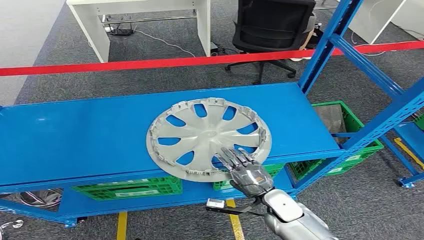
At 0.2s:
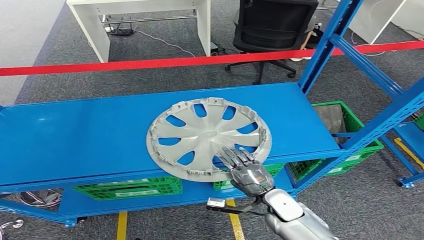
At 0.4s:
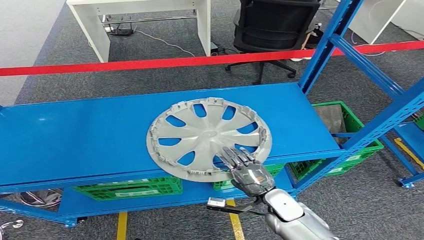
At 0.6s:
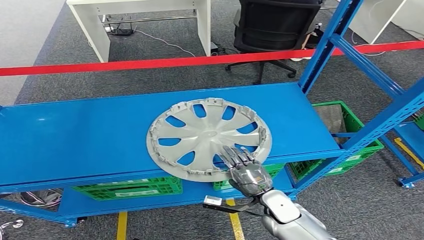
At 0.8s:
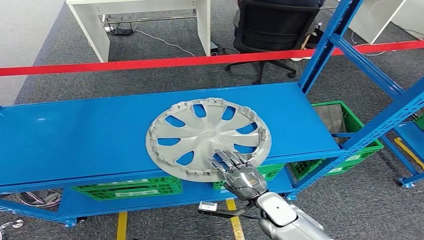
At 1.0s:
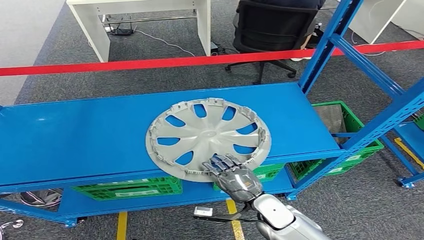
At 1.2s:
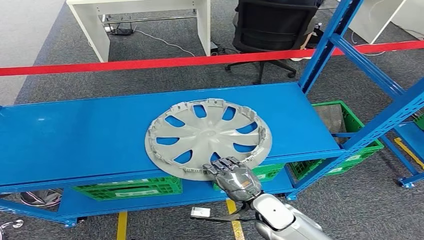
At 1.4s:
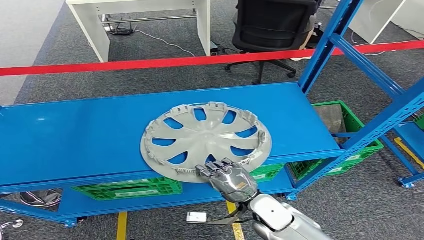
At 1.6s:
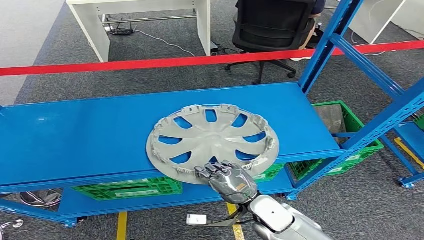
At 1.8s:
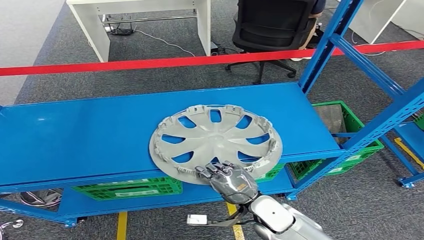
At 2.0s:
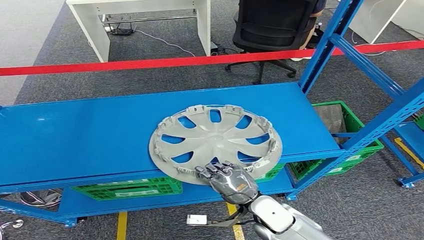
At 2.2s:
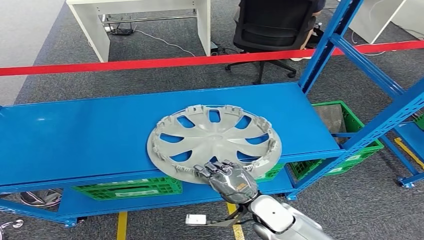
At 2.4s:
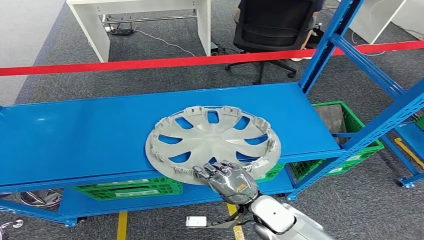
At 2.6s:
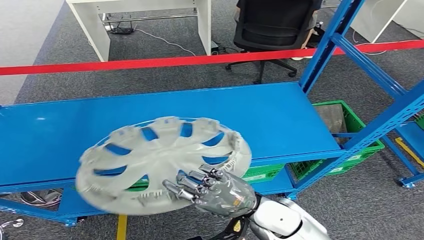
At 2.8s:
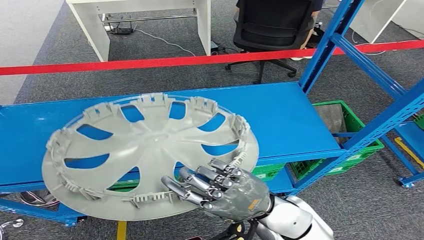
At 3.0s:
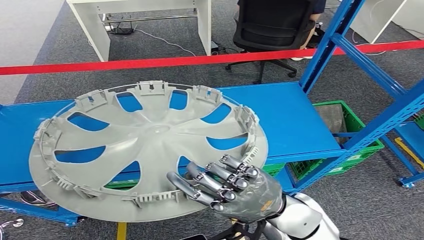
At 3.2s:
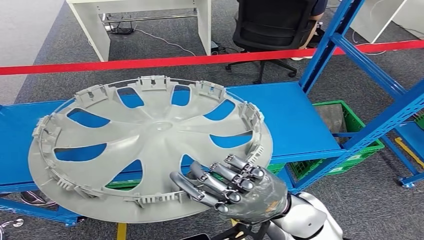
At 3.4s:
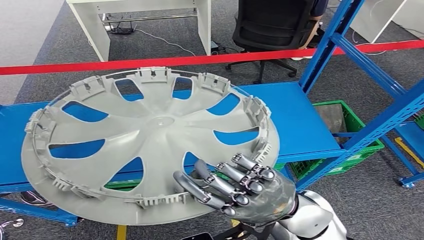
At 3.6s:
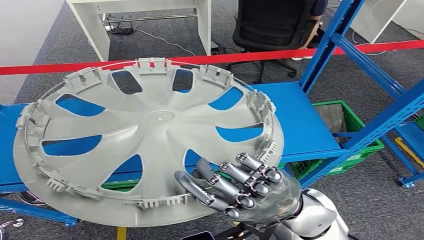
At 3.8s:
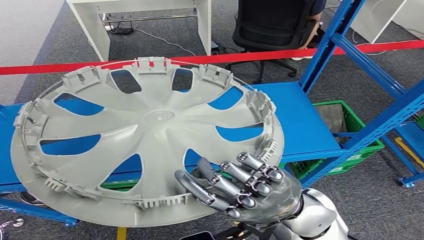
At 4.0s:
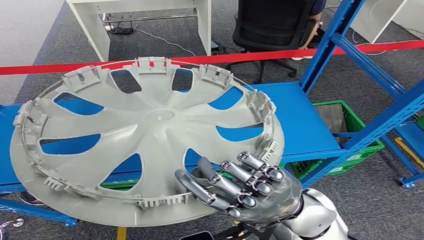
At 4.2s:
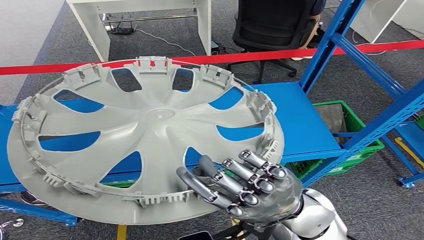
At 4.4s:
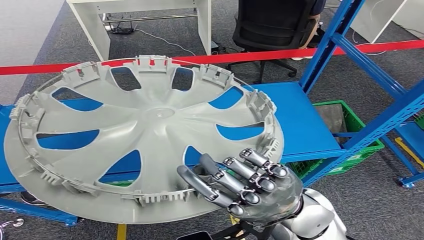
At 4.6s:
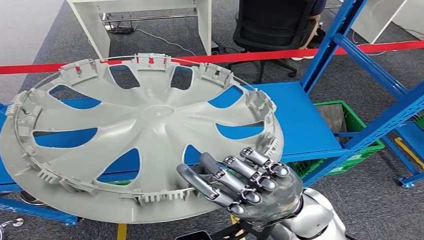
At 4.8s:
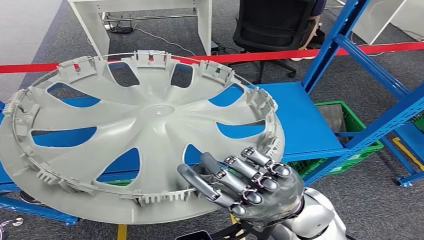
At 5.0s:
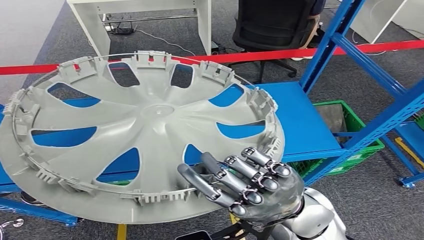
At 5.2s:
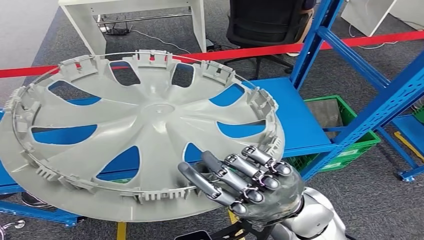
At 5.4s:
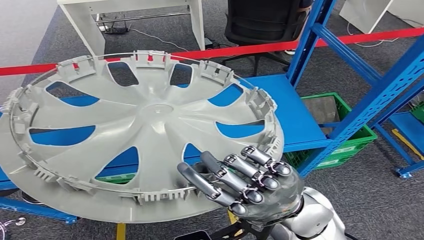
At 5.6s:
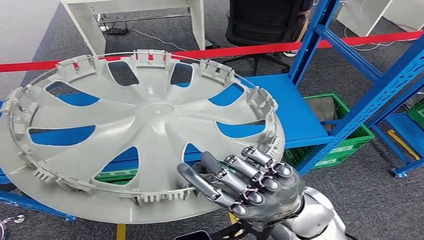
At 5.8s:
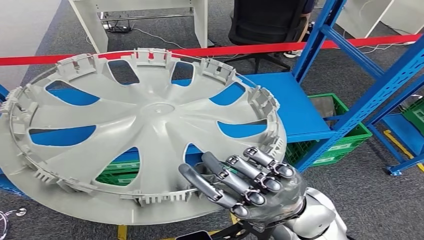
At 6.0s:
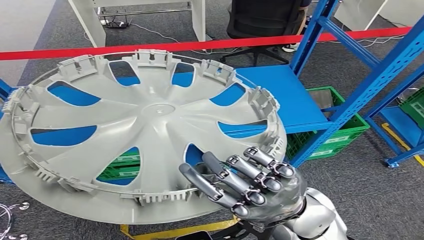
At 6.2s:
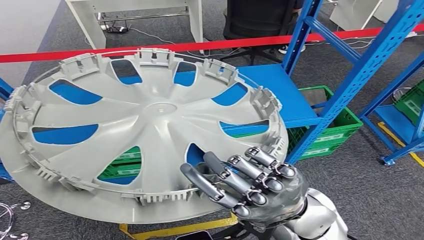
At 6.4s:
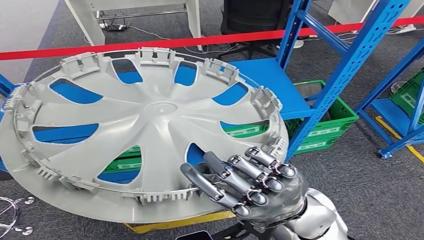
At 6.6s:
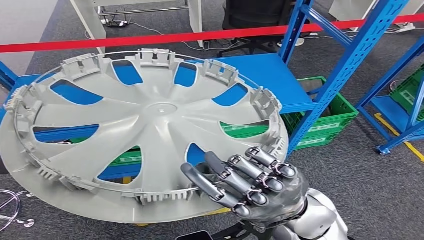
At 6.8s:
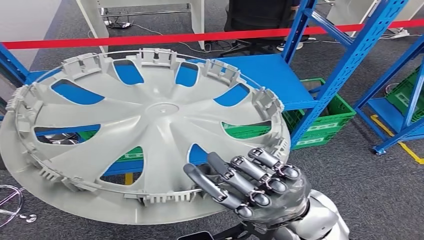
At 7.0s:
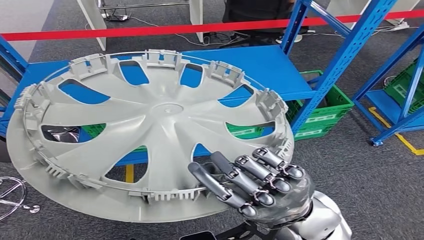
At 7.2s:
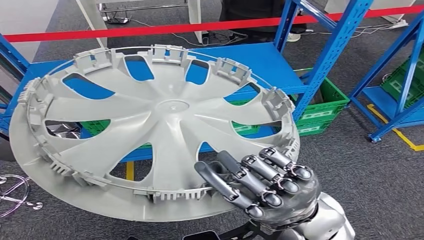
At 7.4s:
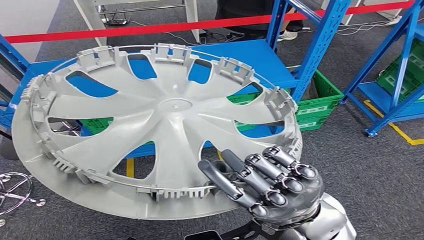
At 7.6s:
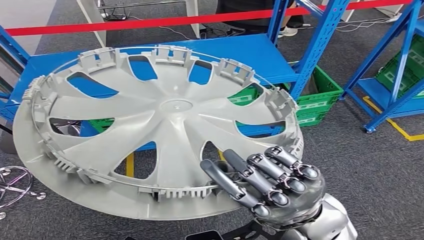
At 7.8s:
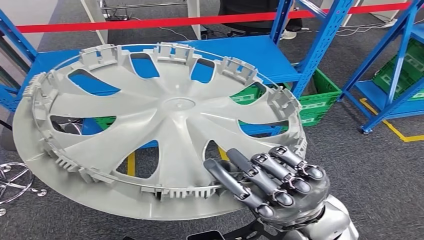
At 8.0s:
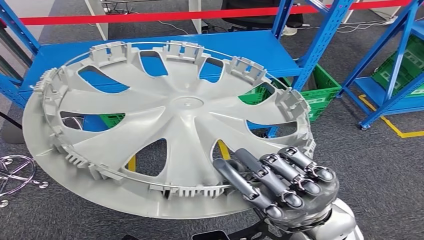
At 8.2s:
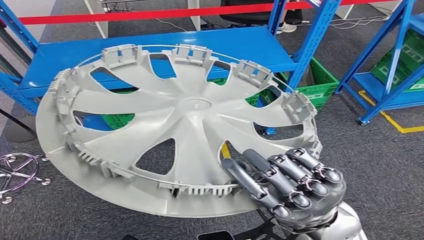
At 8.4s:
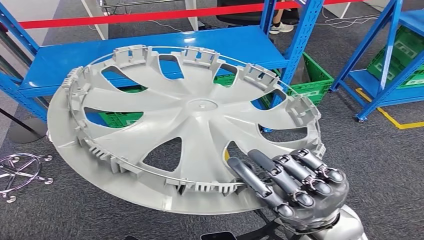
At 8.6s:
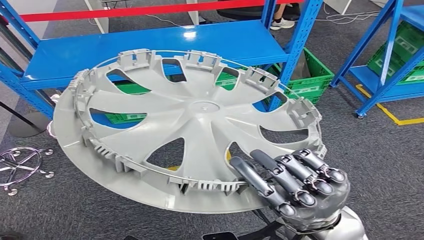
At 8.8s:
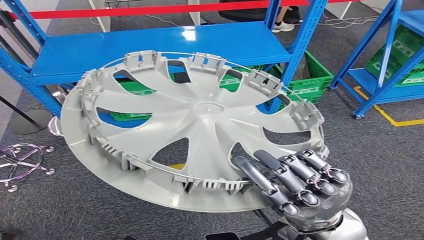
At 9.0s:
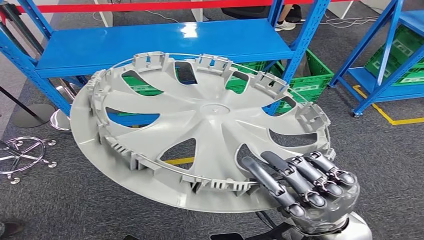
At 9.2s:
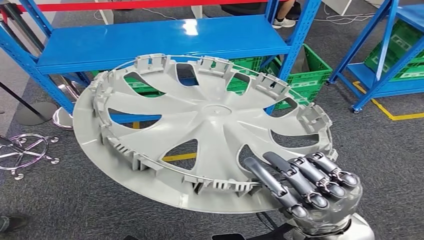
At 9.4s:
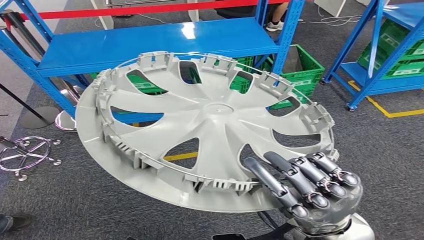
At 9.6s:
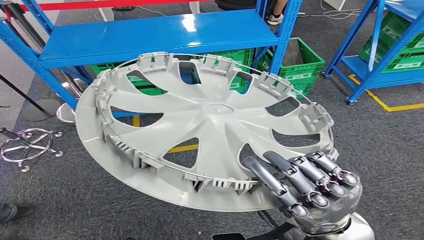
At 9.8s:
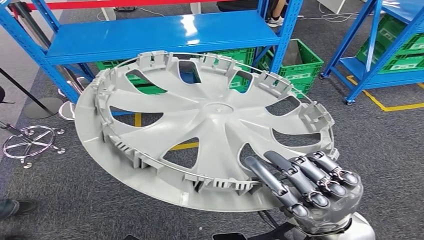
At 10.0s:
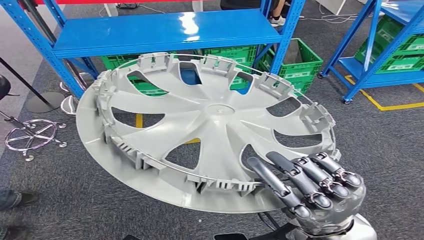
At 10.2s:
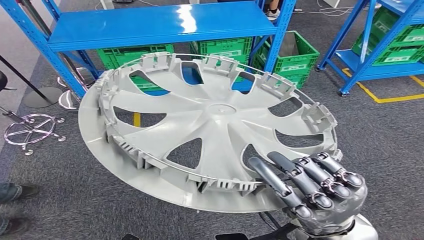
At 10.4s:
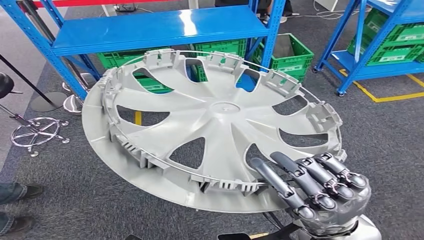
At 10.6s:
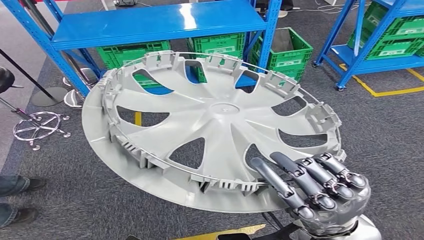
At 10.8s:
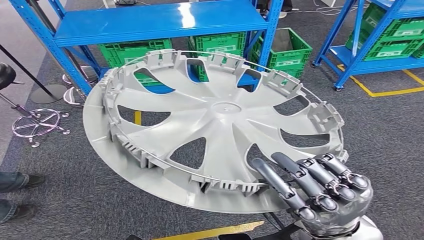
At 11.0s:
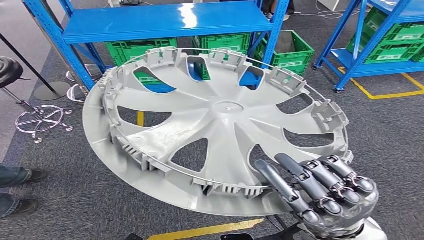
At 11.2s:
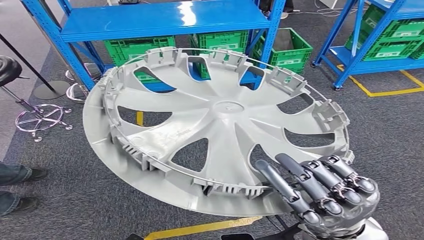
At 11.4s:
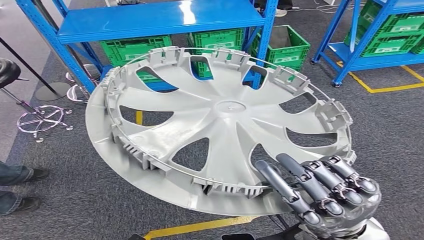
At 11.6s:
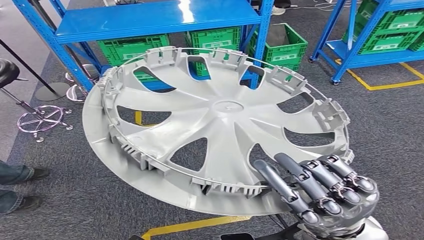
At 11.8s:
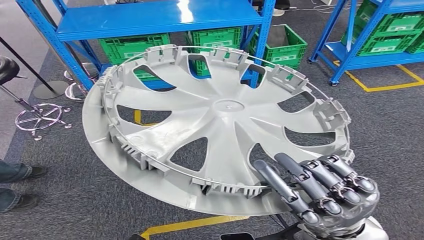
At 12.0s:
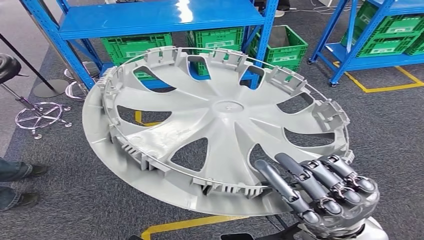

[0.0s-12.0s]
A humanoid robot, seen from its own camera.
Step, 0.0s to 6.0s: Pick up the small component from the shelf.

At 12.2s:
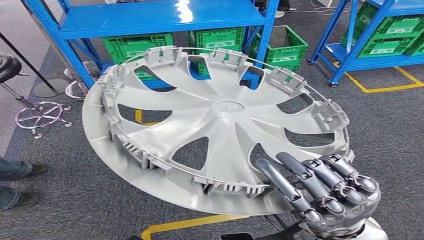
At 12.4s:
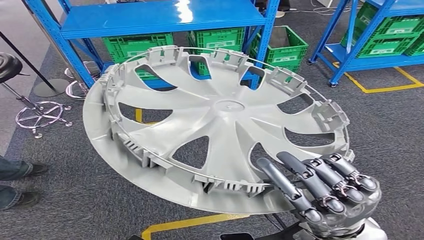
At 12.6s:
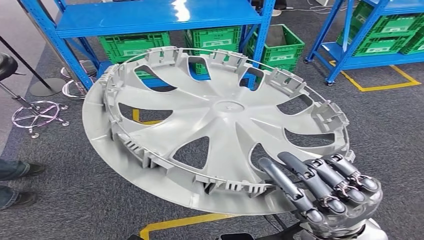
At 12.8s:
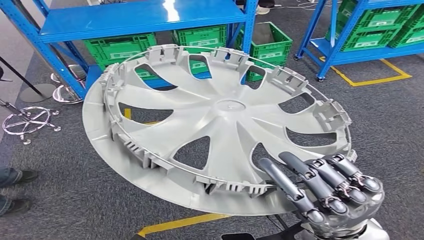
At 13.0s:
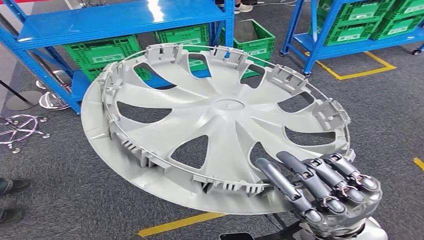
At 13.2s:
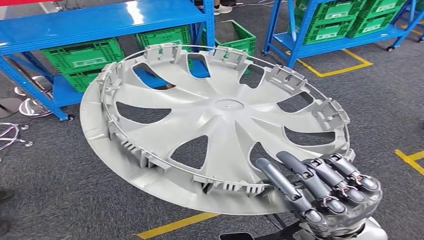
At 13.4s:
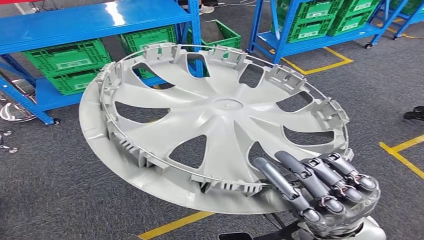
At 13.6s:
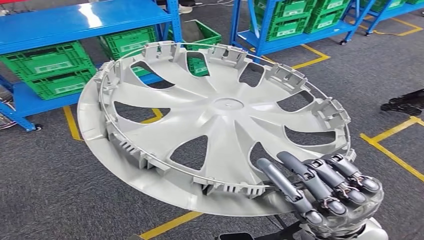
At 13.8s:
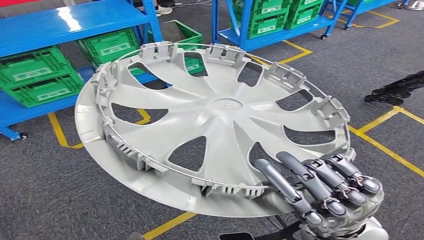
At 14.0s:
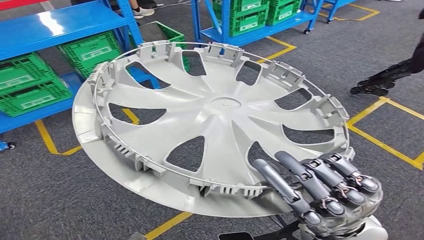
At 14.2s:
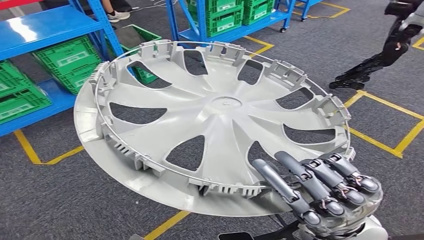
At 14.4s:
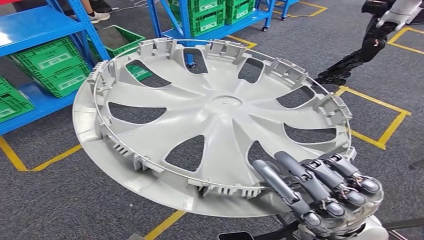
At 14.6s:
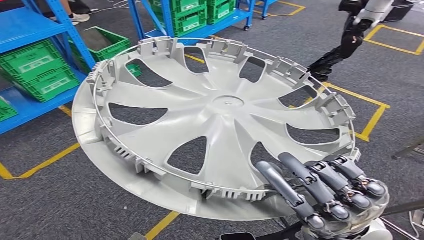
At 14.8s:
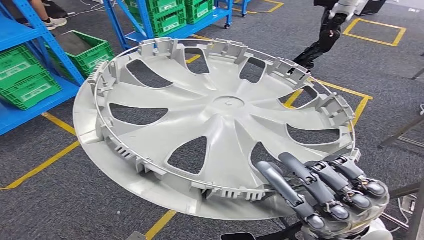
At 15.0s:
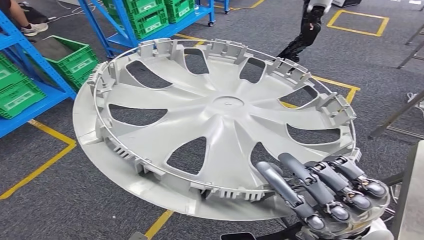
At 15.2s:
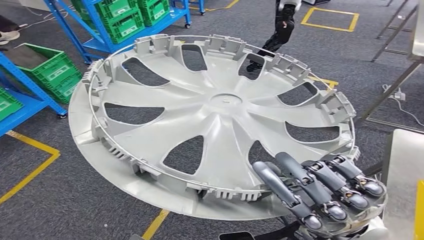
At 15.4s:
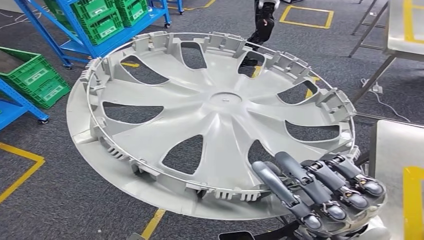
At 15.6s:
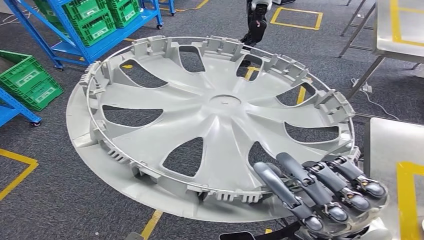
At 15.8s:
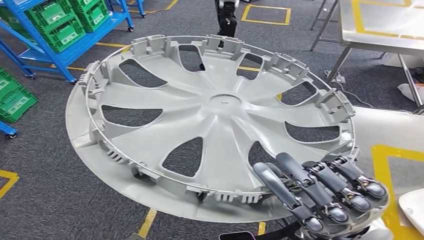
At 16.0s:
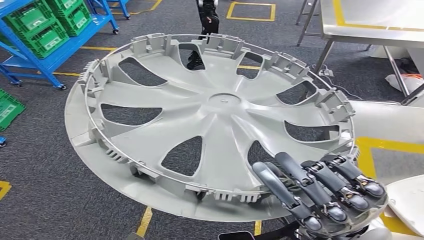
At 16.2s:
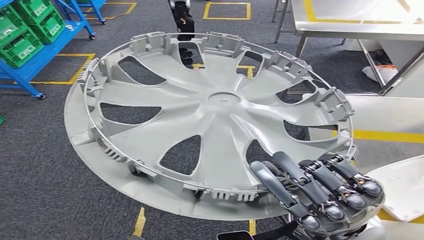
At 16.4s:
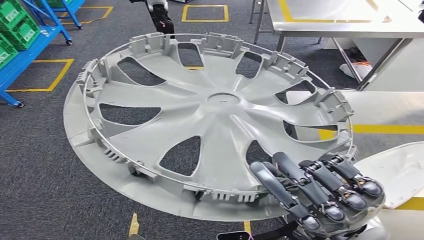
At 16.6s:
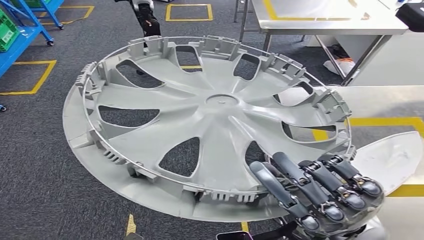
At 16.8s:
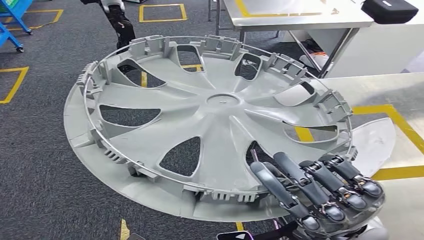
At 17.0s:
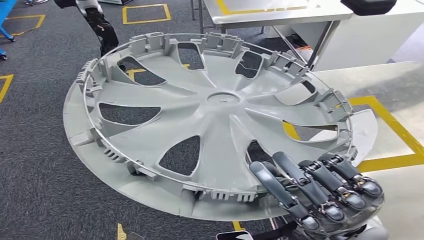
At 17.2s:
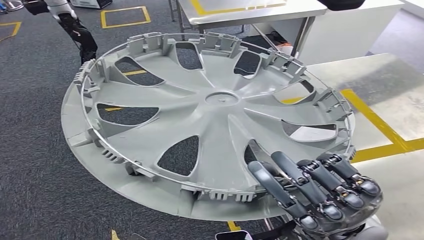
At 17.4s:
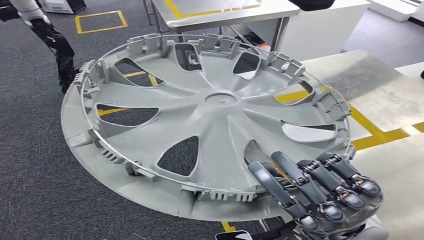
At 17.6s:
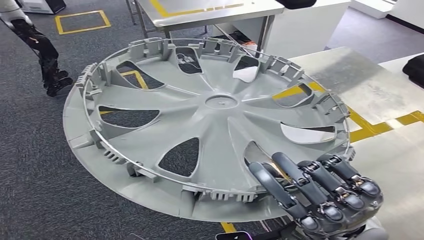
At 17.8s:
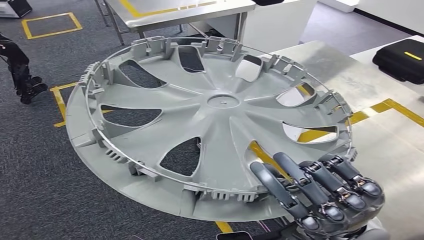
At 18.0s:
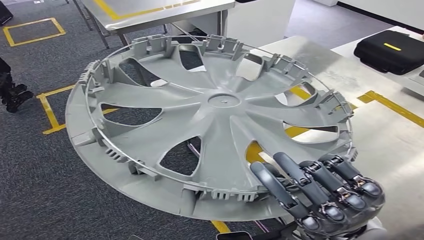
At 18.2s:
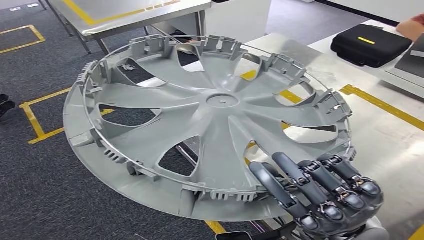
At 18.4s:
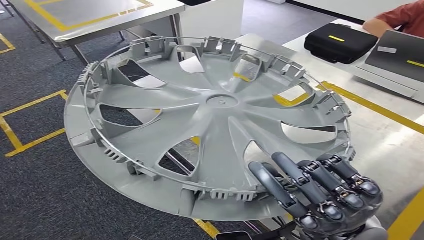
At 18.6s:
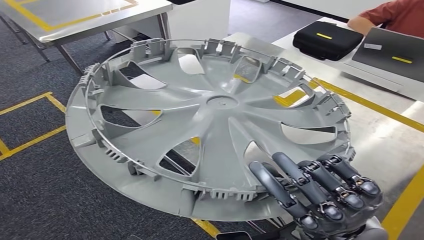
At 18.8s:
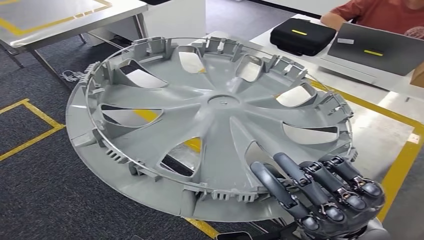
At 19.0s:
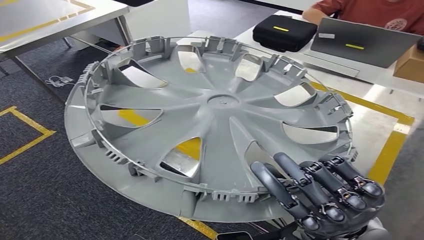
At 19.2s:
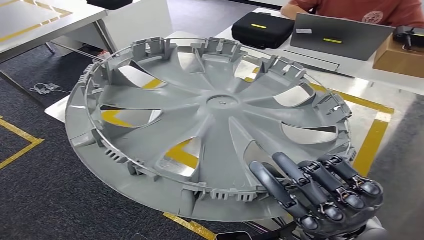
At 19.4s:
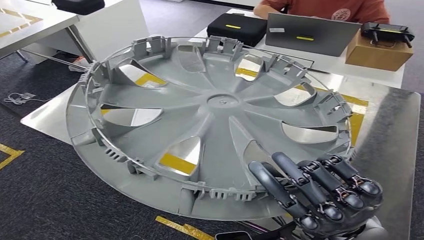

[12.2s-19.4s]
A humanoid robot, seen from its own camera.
Step, 12.2s to 19.4s: Move the small component to the workbench.
